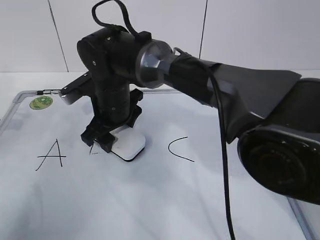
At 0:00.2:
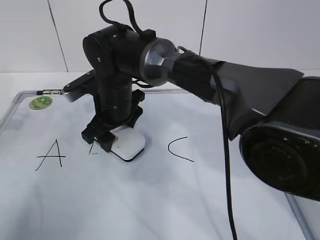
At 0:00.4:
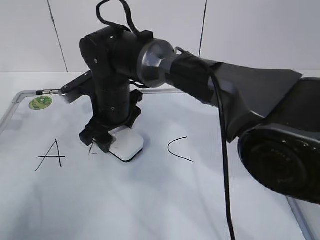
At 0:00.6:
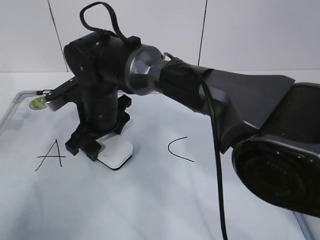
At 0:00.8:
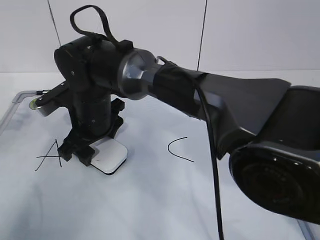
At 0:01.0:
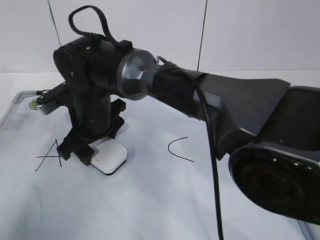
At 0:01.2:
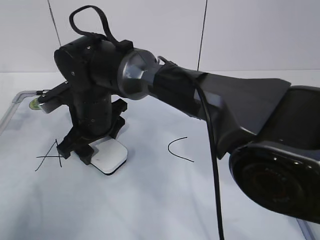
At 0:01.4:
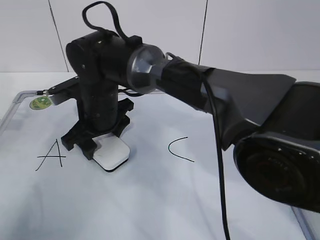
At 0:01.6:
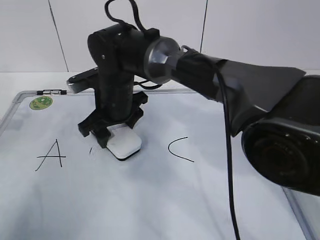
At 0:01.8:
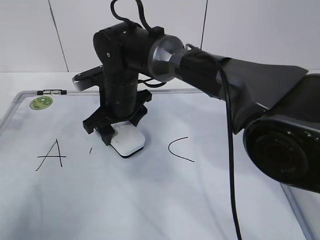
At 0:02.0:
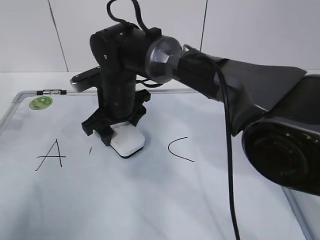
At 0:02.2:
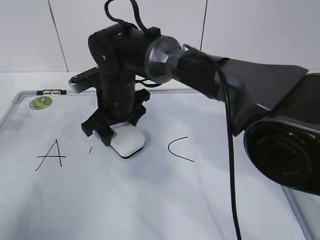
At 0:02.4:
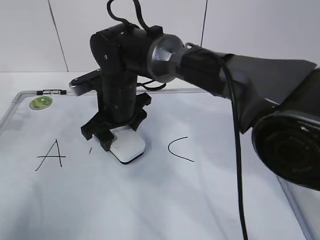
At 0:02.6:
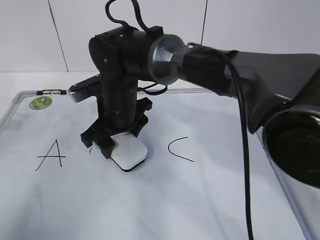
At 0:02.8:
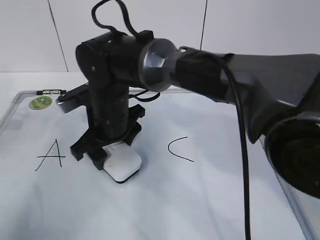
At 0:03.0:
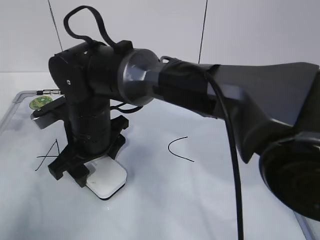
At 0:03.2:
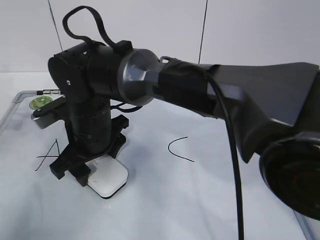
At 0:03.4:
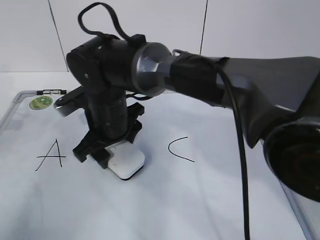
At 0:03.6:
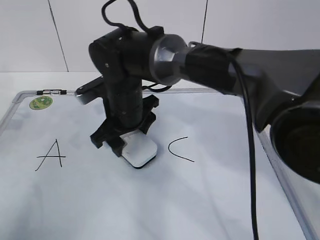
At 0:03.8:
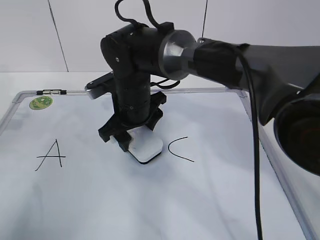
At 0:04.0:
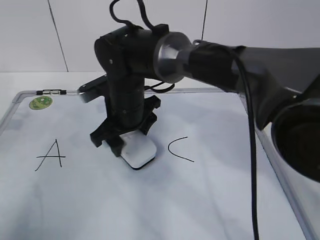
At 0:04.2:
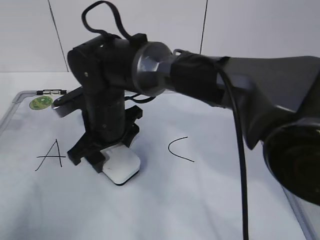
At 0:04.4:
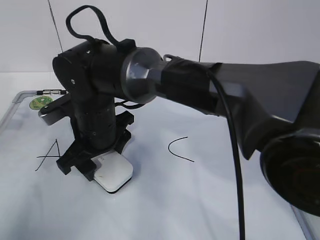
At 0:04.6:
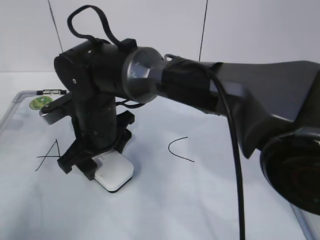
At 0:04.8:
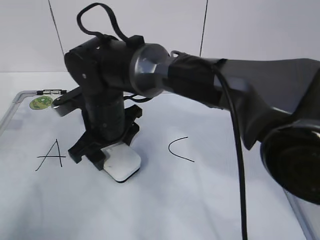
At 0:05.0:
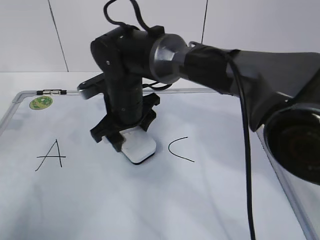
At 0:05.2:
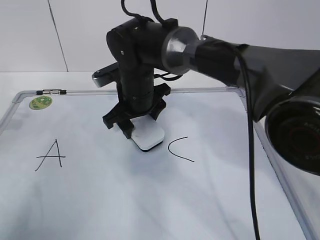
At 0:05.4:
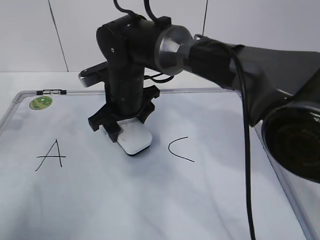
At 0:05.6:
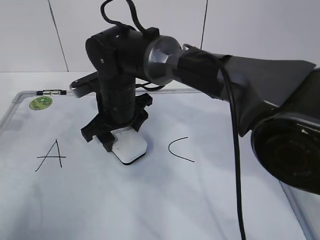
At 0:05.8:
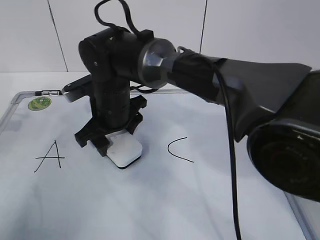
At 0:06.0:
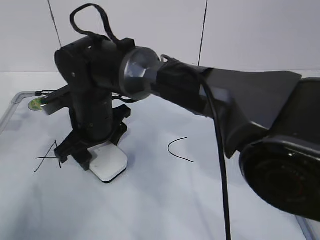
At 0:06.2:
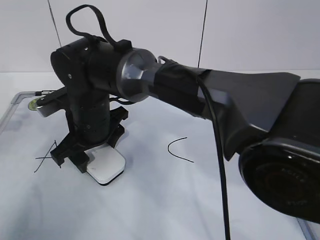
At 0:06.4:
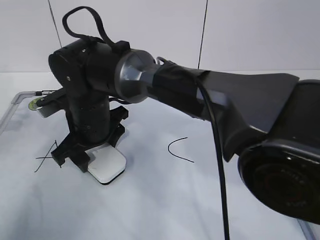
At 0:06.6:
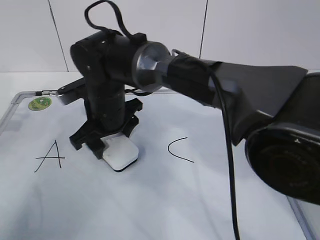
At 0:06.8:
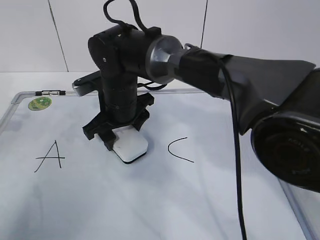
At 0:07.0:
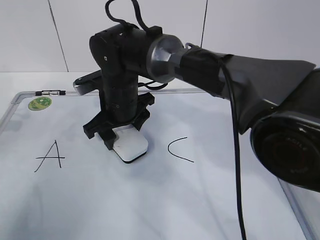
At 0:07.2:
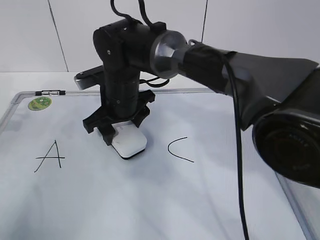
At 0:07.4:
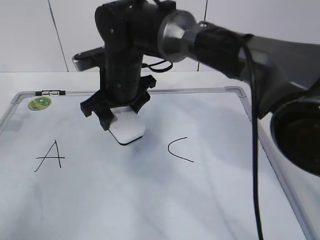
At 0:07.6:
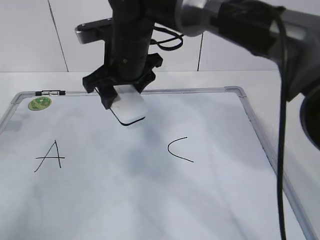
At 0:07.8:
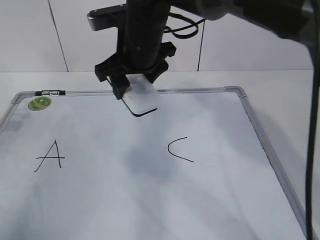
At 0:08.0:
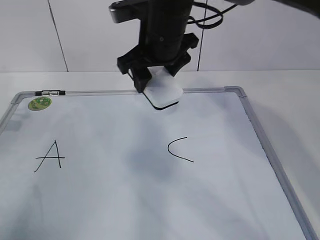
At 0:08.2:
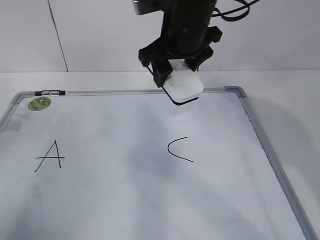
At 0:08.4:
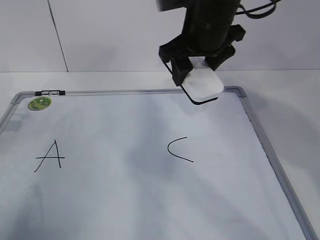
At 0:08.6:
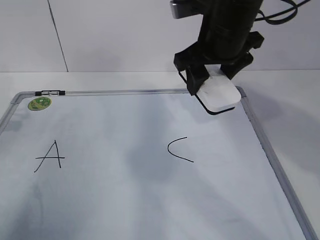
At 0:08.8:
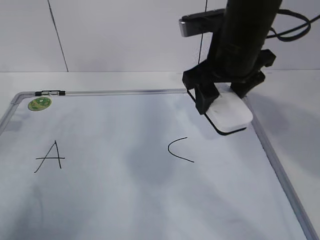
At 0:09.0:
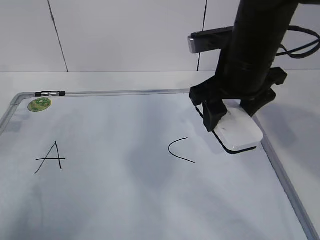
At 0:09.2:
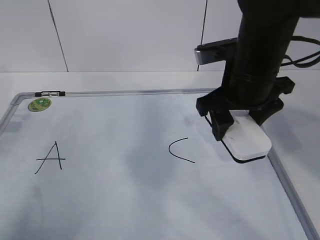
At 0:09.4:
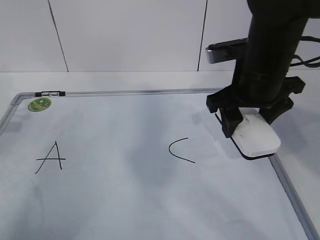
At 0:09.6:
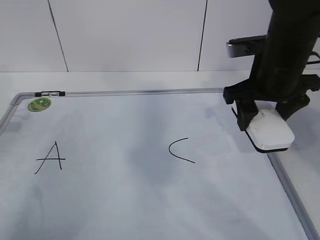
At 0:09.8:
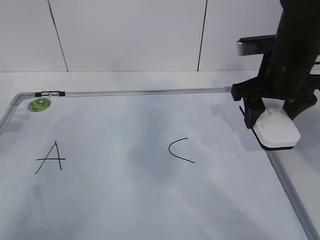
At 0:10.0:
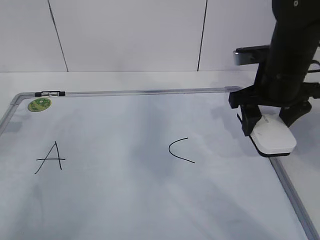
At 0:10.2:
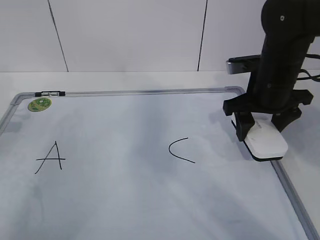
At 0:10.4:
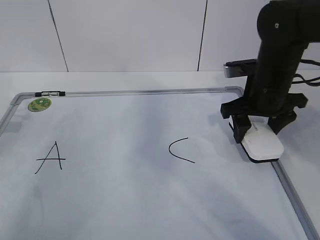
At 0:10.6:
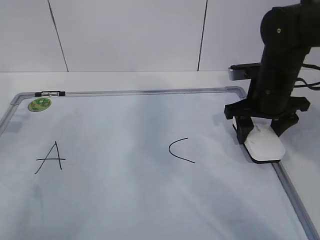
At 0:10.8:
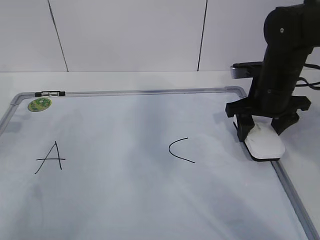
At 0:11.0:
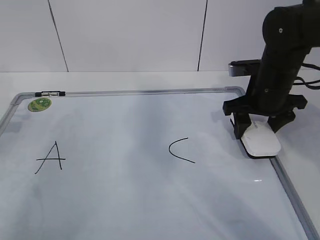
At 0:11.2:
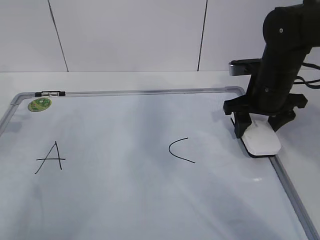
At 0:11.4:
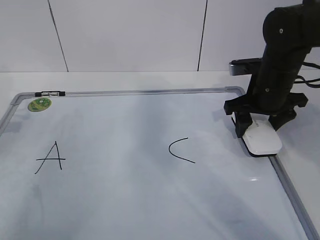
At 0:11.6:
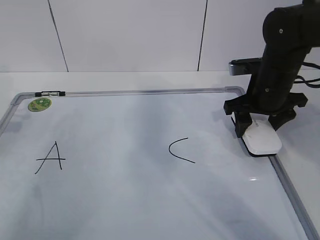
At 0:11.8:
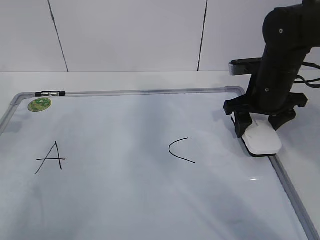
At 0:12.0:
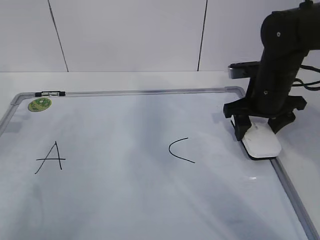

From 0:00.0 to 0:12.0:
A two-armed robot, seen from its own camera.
Task of the whole recording: pick up the eraser on the blackboard and erase the letter "B".
Step, from 0:00.0 to 0:02.2: Erase the letter B with your right hand.
Step, from 0:02.4 to 0:07.0: Put down the eraser with your right hand.
From 0:00.0 to 0:01.6: There are only small adjustments of the grippers.
From 0:01.6 to 0:03.0: The right gripper shifts approximately 5 cm backward.
From 0:06.0 to 0:07.6: The right gripper moves upward and to the right, about 10 cm.
From 0:07.6 to 0:09.0: The right gripper shifts roughly 15 cm to the right and backward.
From 0:09.0 to 0:10.4: The right gripper is displaced downward and to the right by some 10 cm.
From 0:10.4 to 0:12.0: The grippers move only a little.

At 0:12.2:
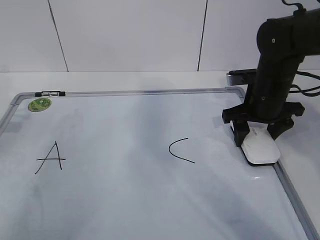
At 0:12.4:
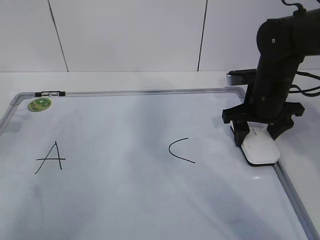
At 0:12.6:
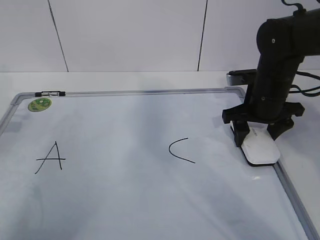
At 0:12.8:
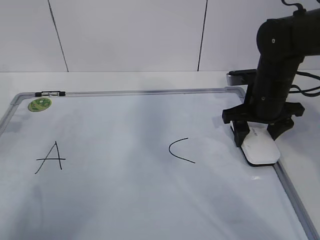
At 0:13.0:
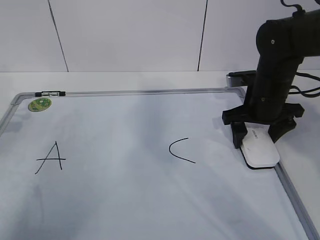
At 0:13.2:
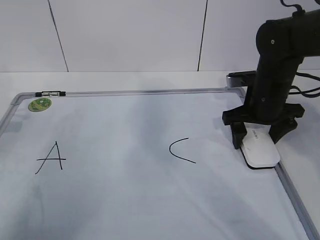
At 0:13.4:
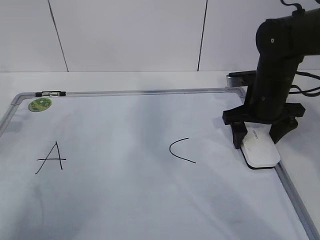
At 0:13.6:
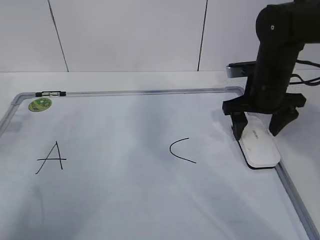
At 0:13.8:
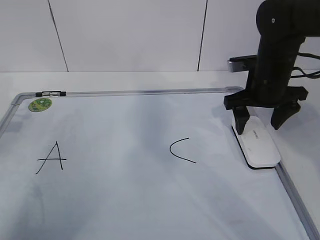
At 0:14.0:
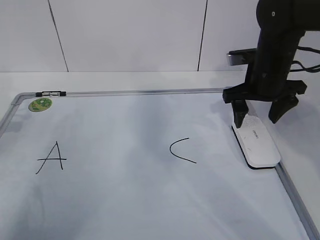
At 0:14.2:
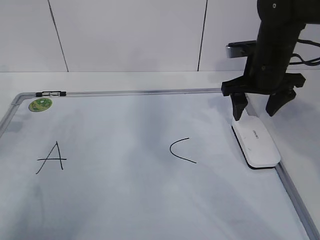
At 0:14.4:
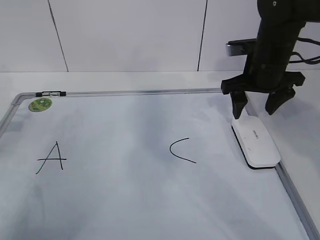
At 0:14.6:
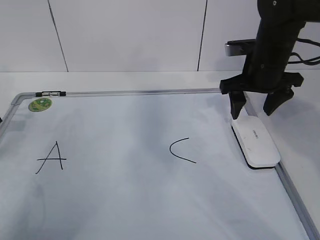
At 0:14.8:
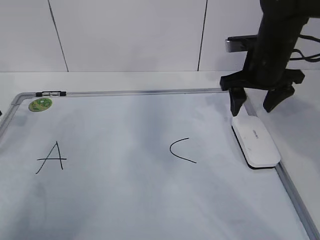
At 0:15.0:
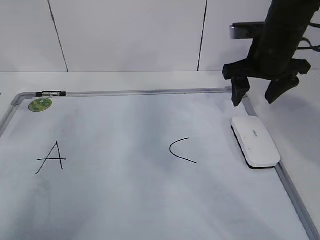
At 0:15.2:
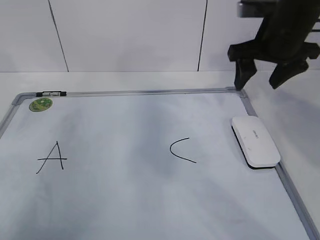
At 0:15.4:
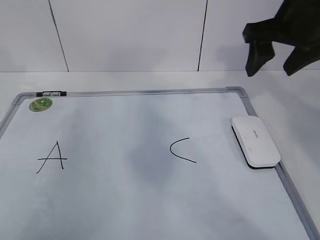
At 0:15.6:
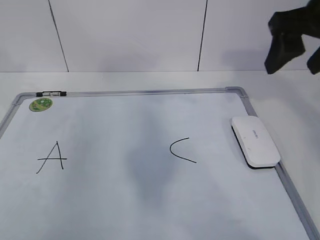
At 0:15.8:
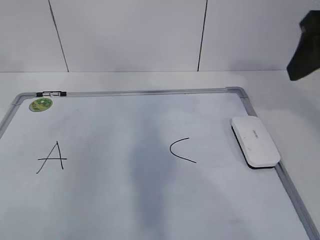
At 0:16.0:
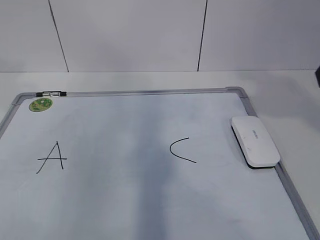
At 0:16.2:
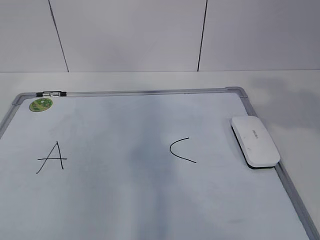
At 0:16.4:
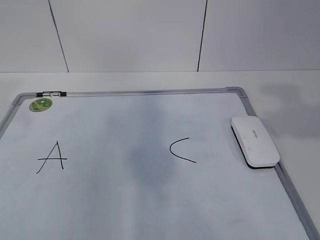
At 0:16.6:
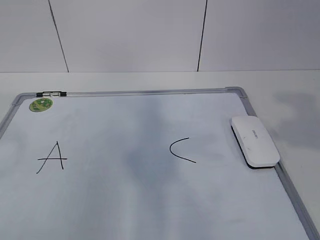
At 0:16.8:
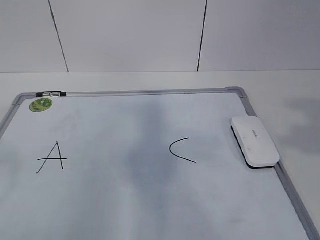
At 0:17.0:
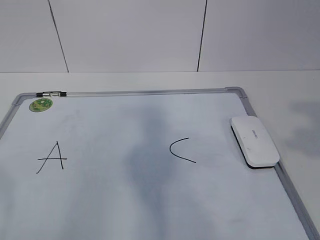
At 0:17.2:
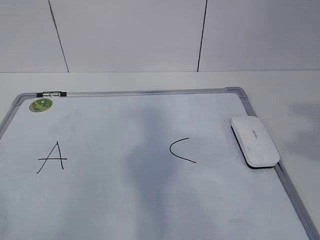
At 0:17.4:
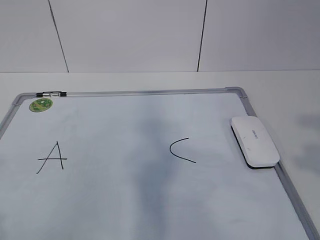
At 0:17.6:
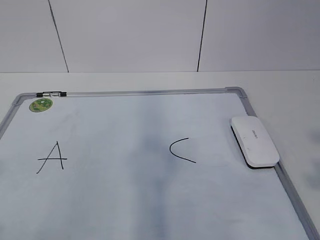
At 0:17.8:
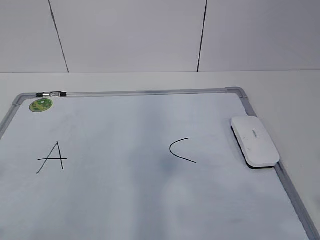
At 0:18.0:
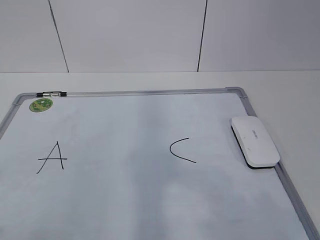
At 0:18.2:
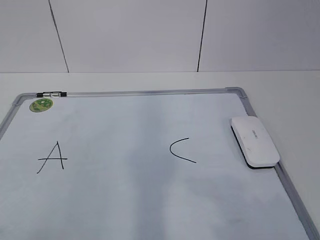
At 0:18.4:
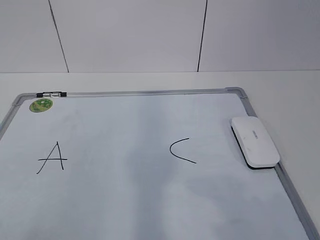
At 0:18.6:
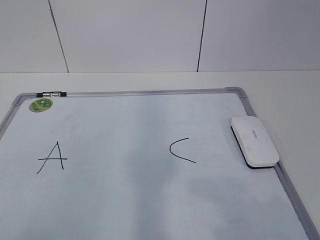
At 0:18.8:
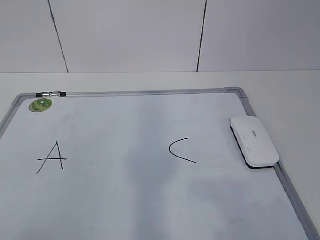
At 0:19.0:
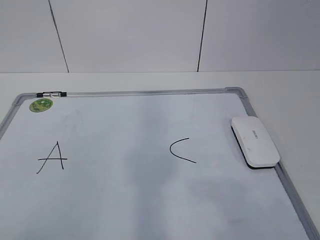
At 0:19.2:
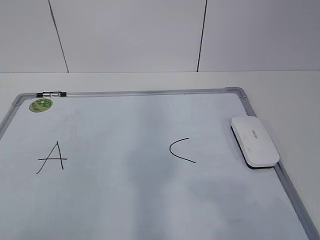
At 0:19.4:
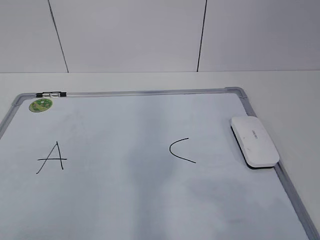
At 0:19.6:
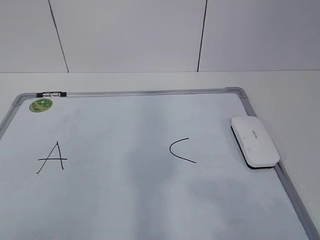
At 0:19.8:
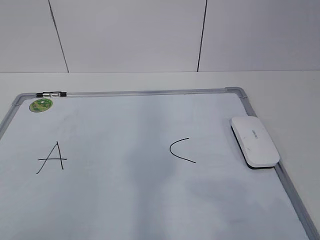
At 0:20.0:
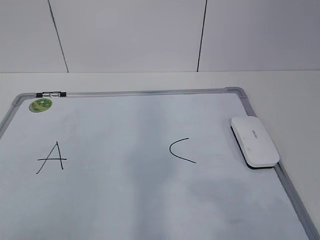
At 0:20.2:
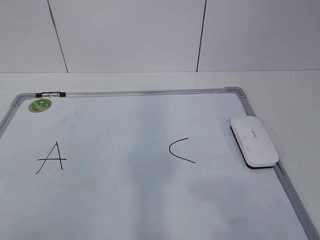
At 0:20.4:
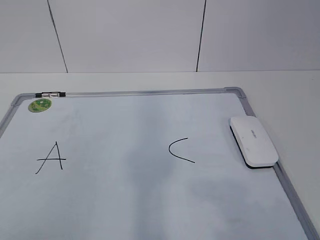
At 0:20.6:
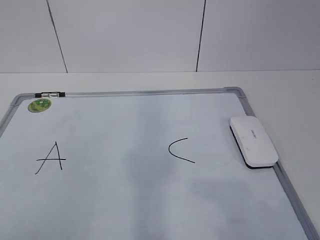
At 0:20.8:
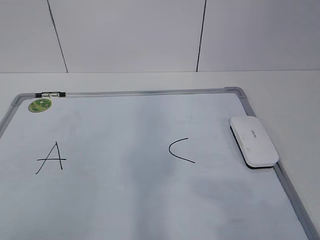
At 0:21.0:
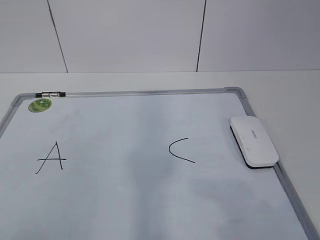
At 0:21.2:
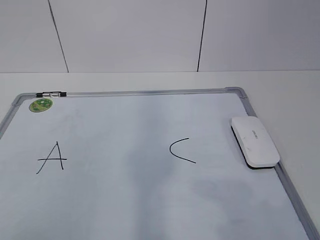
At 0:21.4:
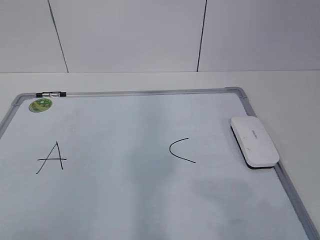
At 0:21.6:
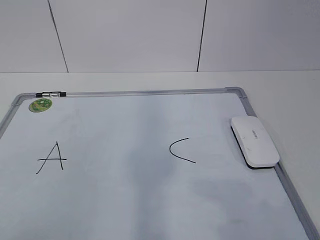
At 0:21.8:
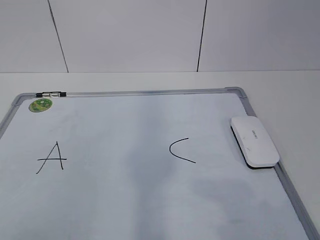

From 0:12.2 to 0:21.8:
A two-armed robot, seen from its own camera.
Task of the whole recording: pick up the eraser on the blackboard and erase the letter "B".
From 0:12.2 to 0:13.8: The right gripper opens.
From 0:13.8 to 0:15.4: The grippers both shift upward by some 10 cm. The left gripper opens.
From 0:15.4 to 0:17.0: The two grippers go some 30 cm backward. The right gripper closes its fingers.
From 0:18.6 to 0:20.2: The two grippers keep their place.
